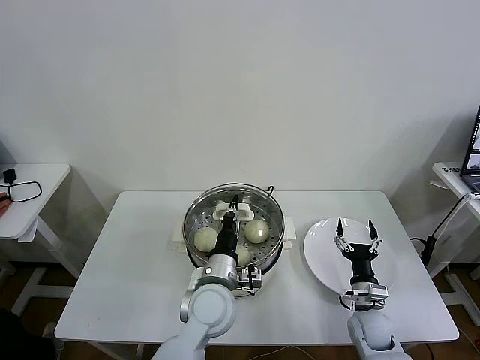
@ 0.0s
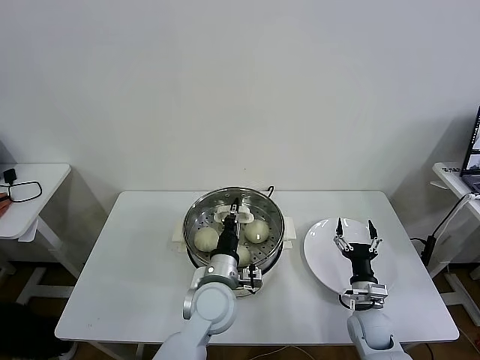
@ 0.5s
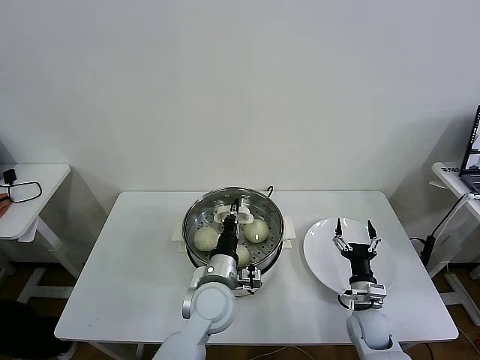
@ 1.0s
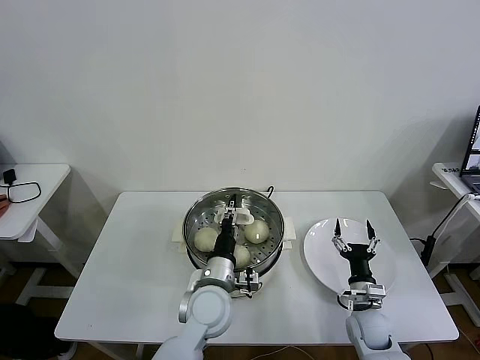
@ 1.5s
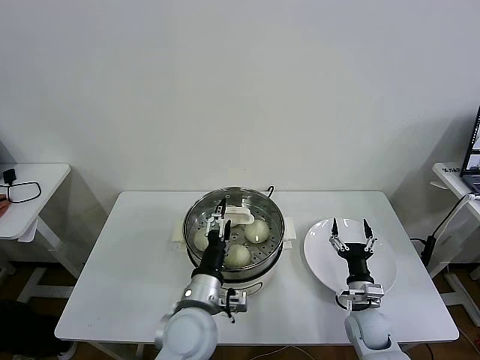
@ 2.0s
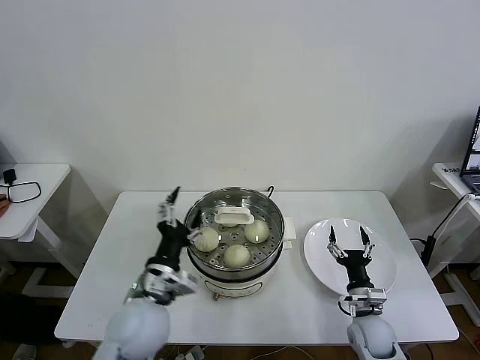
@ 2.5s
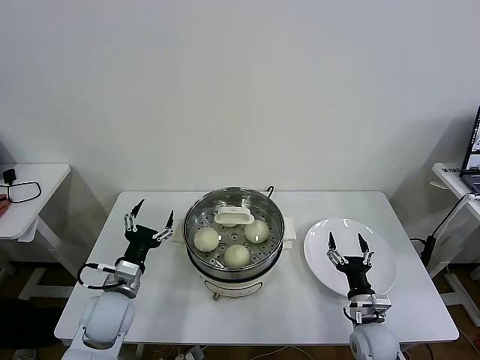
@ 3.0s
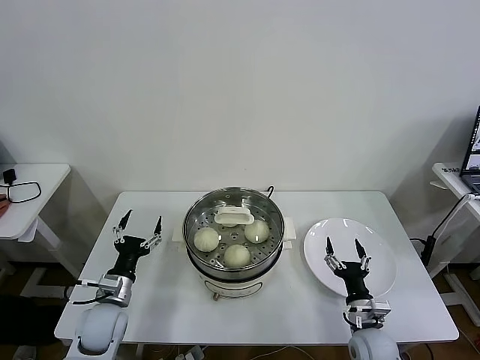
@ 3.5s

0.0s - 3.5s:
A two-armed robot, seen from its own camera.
Task of the whole recording: take steamed baozi put them in steamer then cover it.
0.0s - 2.0s: The left gripper ends up some 5 cm from where it was, and opens up.
2.0s - 3.5s: The left gripper heads to the left, covering roughly 20 cm.
